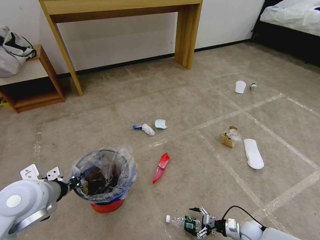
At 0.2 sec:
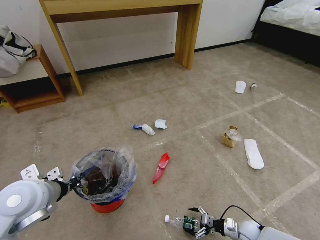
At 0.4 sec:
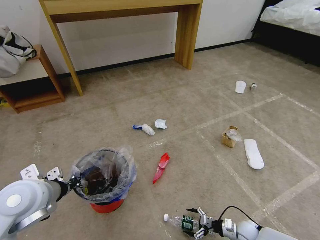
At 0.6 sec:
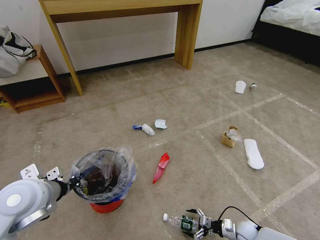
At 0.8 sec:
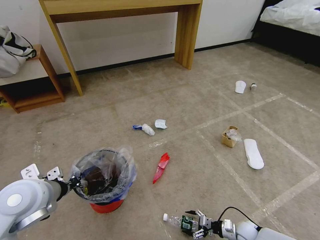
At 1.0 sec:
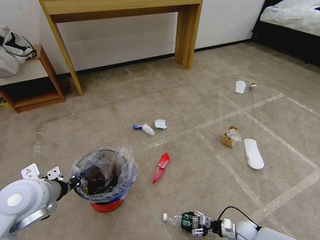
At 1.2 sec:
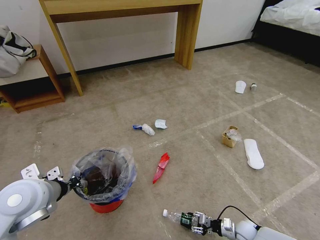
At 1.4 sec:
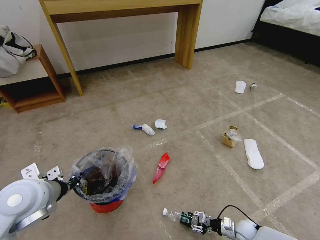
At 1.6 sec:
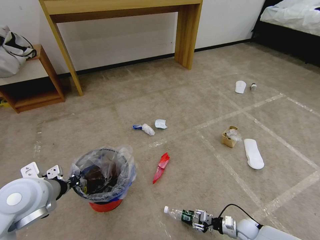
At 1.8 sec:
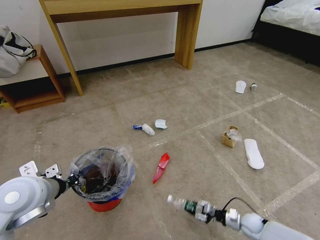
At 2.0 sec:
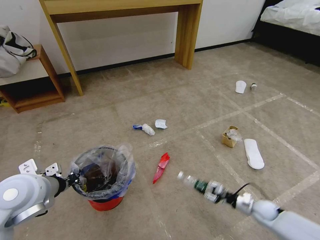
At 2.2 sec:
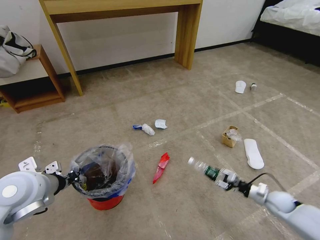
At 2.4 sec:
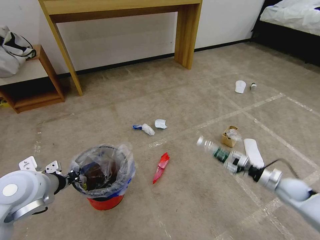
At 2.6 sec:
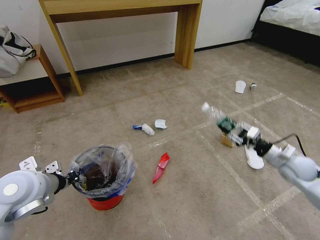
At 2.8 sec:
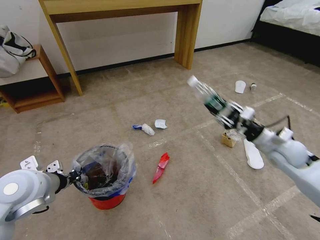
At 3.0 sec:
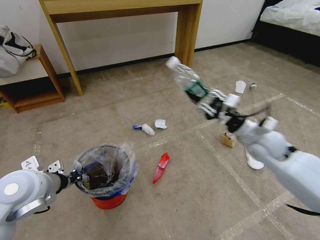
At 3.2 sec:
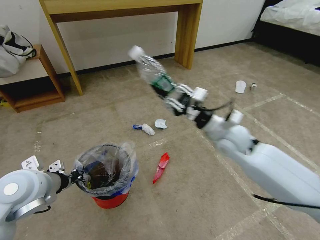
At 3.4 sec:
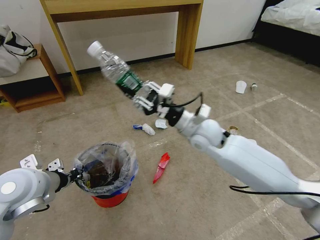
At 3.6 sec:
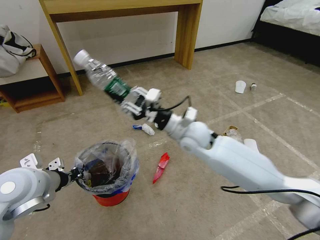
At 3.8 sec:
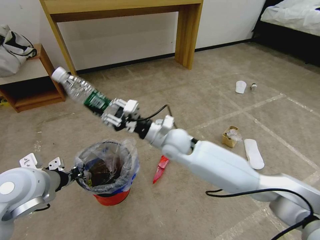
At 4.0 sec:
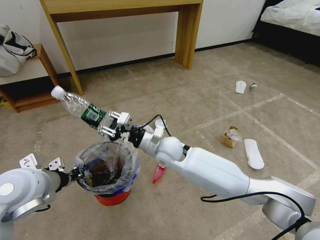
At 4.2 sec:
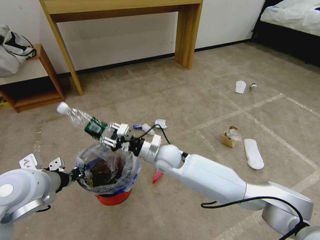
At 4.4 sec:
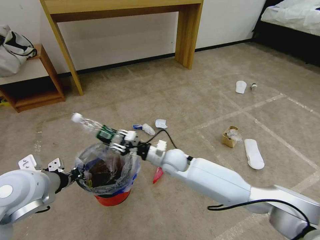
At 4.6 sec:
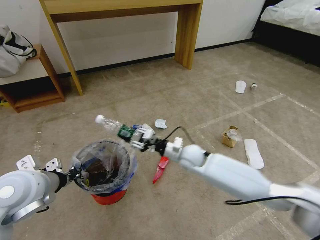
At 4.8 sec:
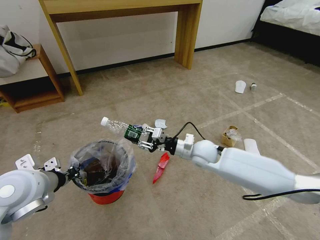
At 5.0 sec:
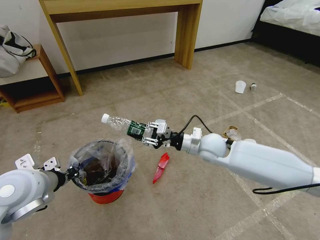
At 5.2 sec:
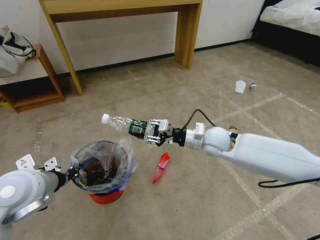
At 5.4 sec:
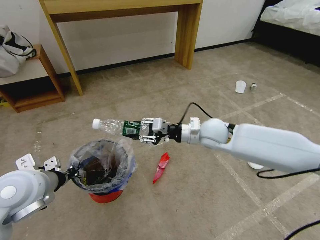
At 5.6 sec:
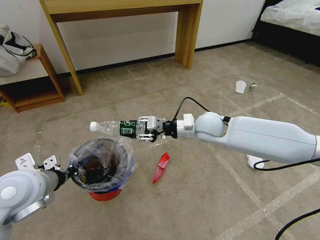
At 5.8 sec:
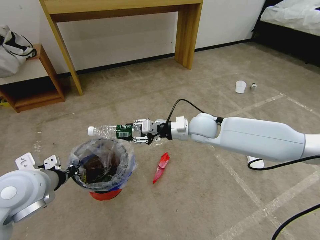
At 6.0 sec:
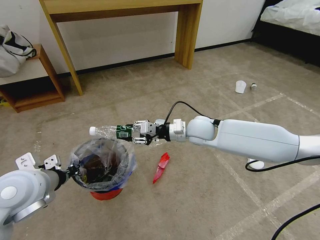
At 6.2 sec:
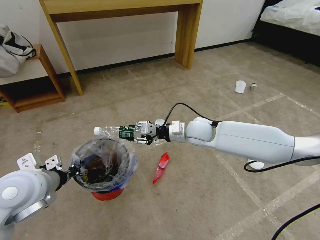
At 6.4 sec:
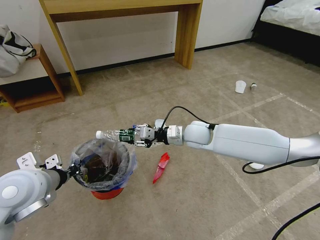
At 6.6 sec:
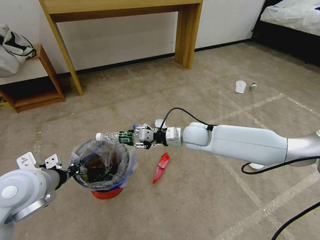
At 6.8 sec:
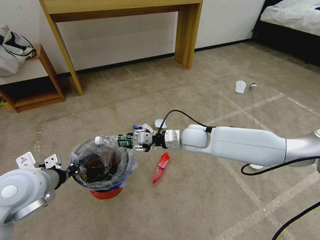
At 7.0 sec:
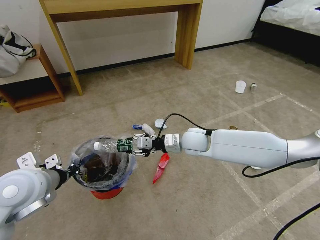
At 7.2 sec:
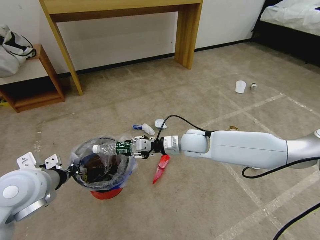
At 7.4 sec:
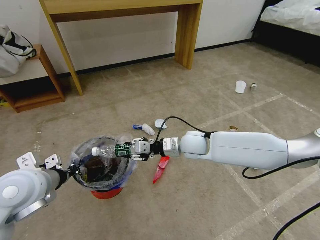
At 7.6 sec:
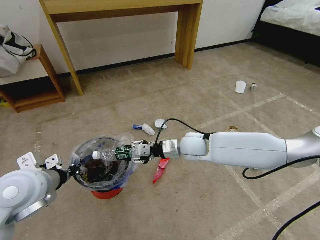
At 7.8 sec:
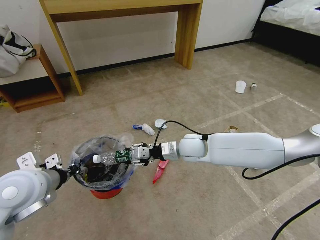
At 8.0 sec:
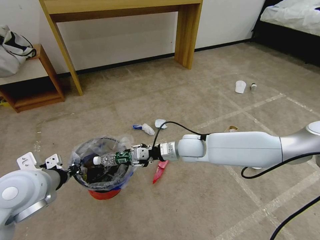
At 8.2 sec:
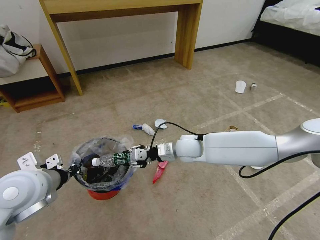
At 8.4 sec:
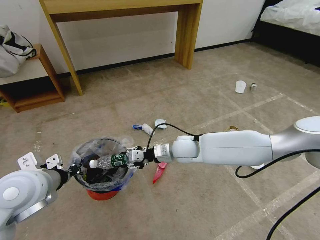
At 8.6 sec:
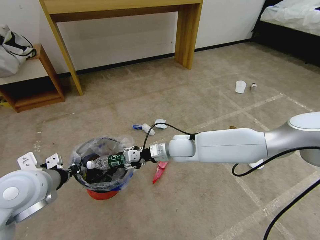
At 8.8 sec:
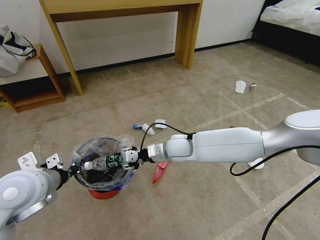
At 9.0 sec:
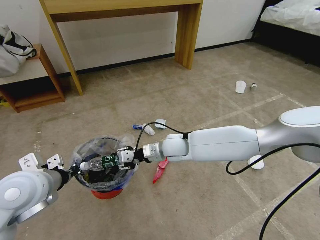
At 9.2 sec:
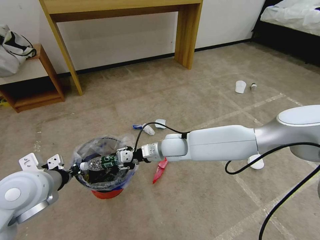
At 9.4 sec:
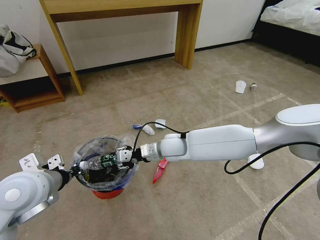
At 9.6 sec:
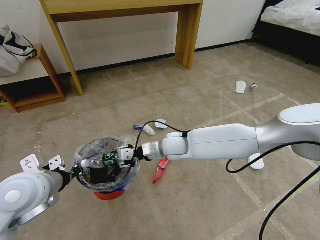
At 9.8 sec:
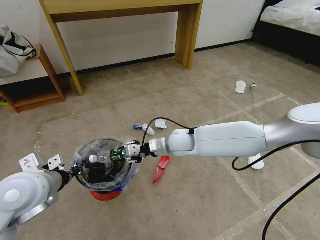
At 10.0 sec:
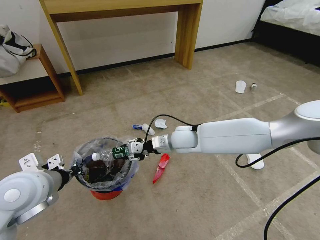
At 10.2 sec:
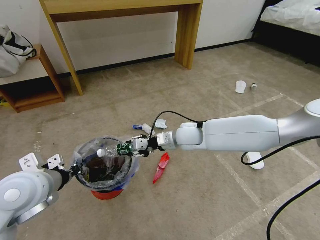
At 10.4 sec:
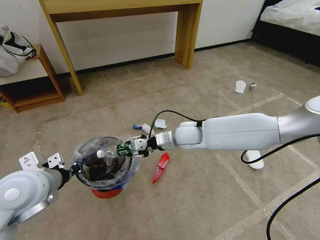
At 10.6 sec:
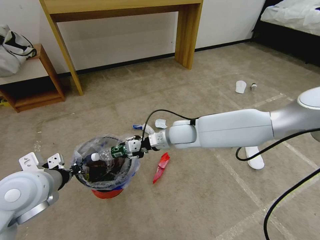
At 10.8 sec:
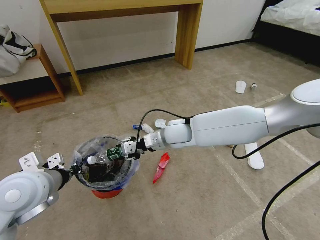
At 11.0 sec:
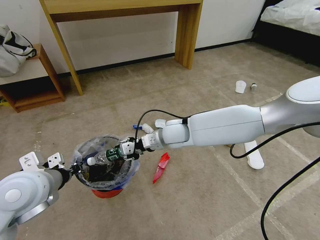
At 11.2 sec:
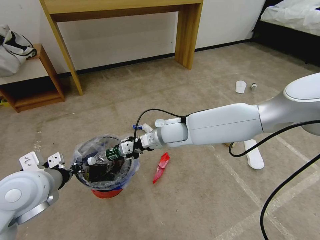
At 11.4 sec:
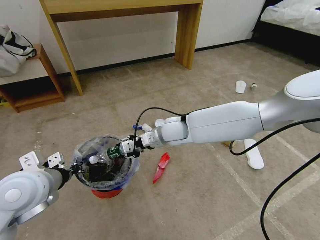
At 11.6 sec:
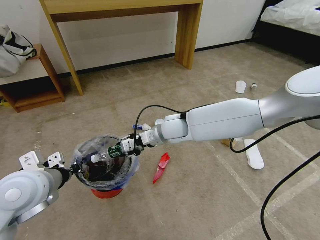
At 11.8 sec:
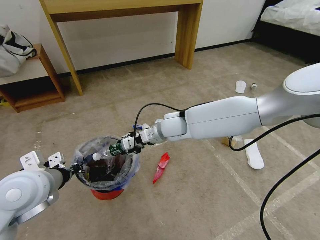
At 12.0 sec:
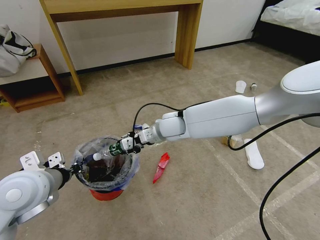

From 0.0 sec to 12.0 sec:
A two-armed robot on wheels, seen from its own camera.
Task of the whole recording: Pick up the trash bin and place the garbage on the floor into it.
From 0.0 sec to 1.6 sec: The right gripper closes its fingers.
From 1.6 sec to 3.0 sec: The right gripper goes roughly 40 cm upward.
From 3.0 sec to 4.4 sec: The right gripper moves to the left and downward, some 30 cm.
From 4.4 sec to 6.0 sec: The right gripper heads upward, to the right and forward, covering about 15 cm.
From 6.0 sec to 7.6 sec: The right gripper ends up some 5 cm from where it was.
From 7.6 sec to 9.0 sec: The right gripper is displaced to the left by approximately 5 cm.
From 9.0 sec to 10.4 sec: The right gripper moves roughly 5 cm.
From 10.4 sec to 12.0 sec: The right gripper moves to the left, about 5 cm.

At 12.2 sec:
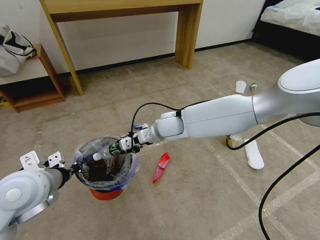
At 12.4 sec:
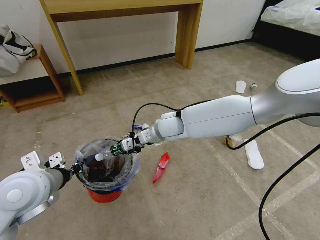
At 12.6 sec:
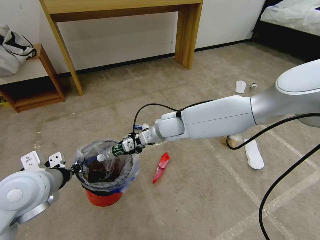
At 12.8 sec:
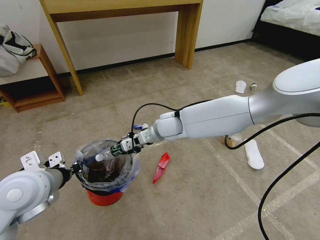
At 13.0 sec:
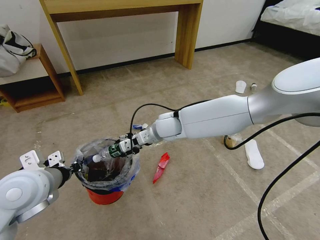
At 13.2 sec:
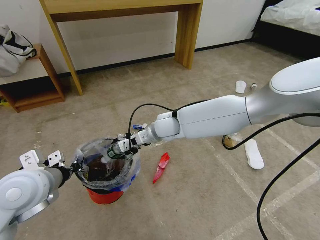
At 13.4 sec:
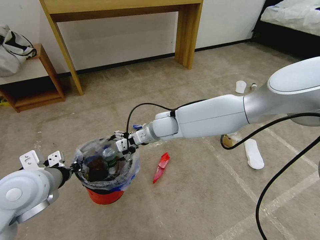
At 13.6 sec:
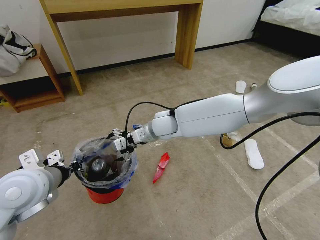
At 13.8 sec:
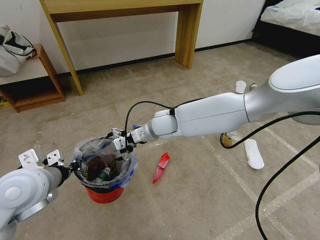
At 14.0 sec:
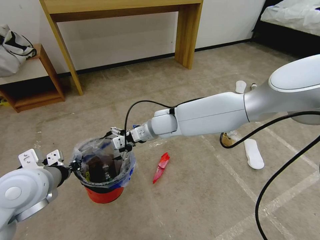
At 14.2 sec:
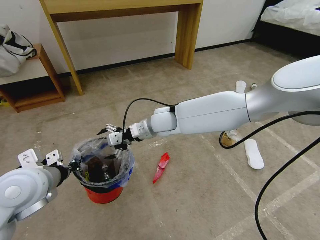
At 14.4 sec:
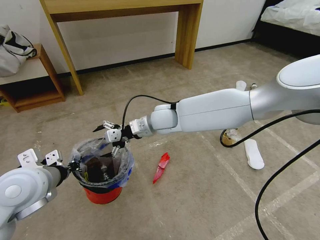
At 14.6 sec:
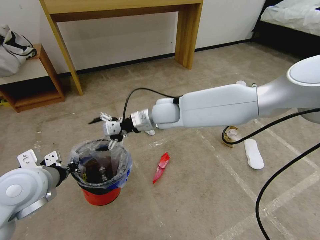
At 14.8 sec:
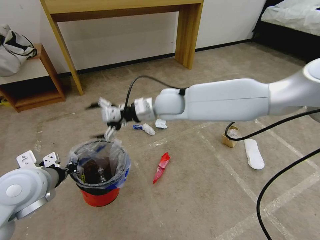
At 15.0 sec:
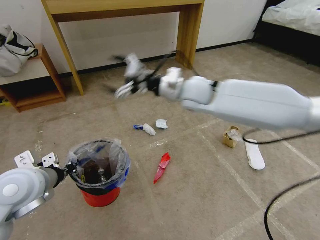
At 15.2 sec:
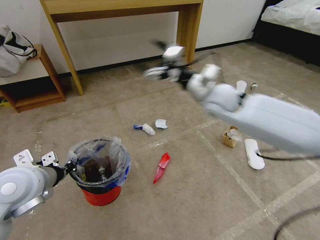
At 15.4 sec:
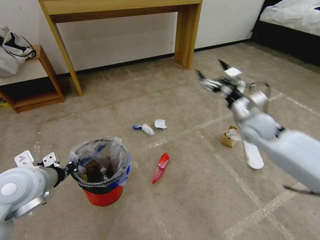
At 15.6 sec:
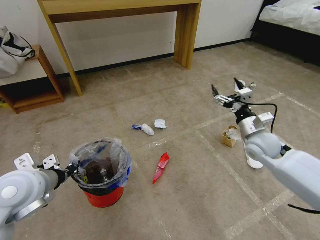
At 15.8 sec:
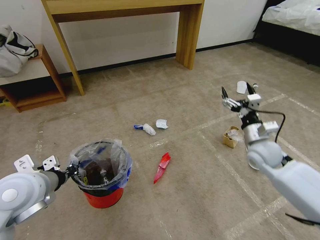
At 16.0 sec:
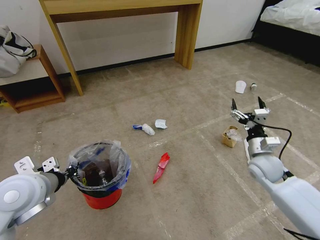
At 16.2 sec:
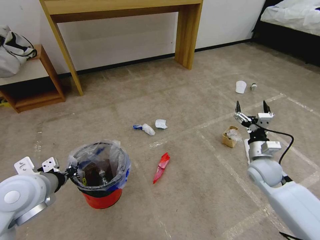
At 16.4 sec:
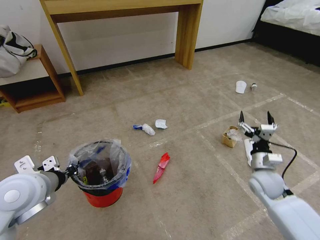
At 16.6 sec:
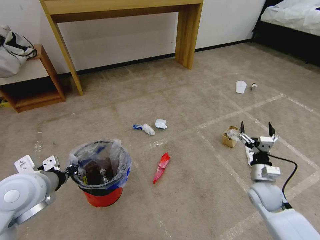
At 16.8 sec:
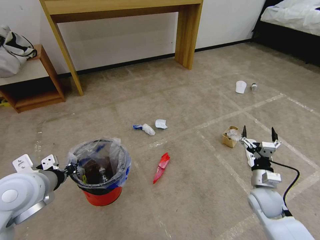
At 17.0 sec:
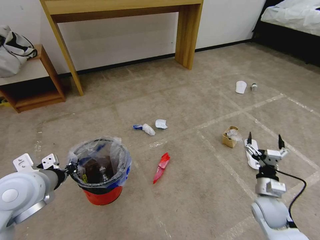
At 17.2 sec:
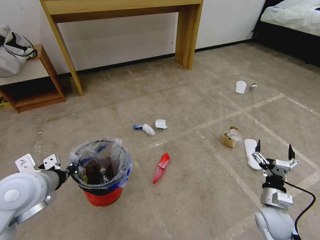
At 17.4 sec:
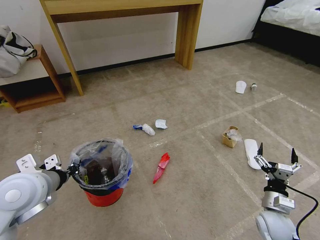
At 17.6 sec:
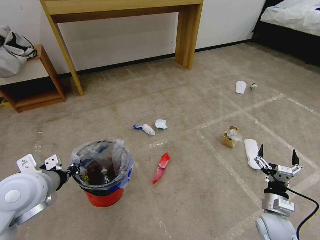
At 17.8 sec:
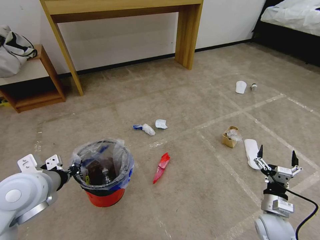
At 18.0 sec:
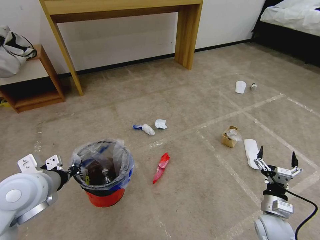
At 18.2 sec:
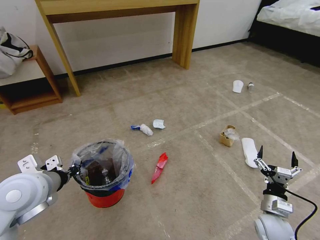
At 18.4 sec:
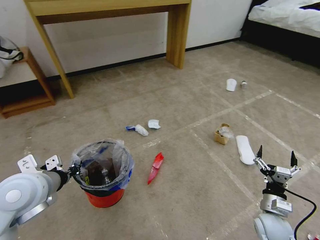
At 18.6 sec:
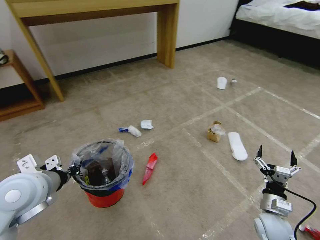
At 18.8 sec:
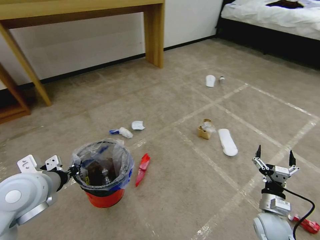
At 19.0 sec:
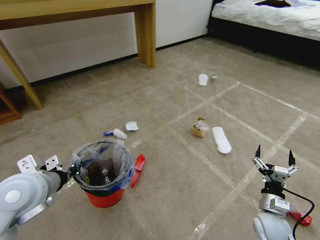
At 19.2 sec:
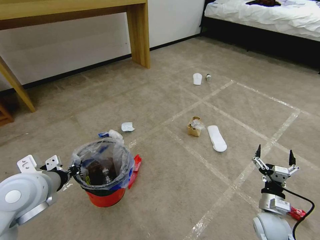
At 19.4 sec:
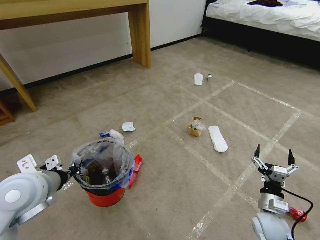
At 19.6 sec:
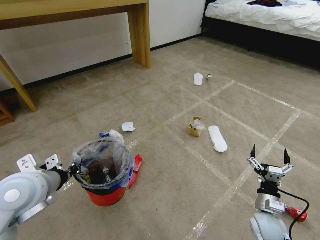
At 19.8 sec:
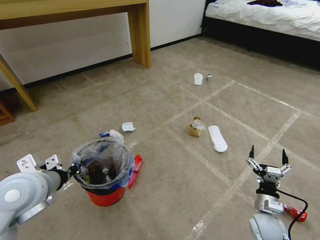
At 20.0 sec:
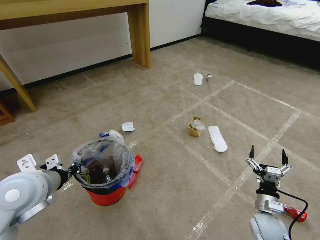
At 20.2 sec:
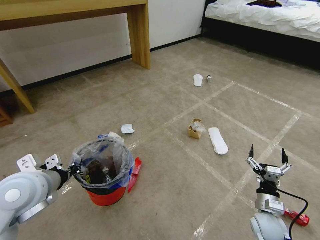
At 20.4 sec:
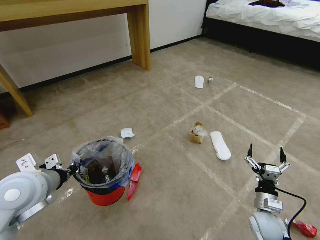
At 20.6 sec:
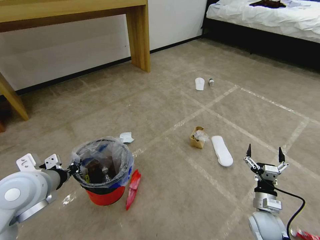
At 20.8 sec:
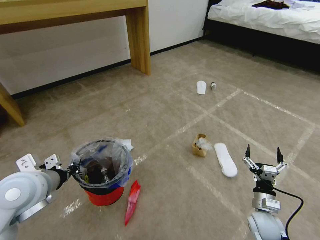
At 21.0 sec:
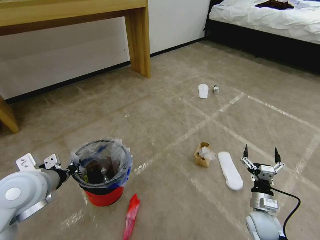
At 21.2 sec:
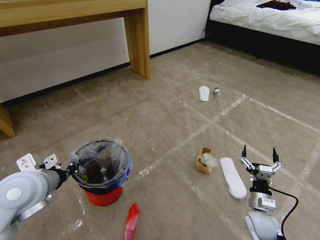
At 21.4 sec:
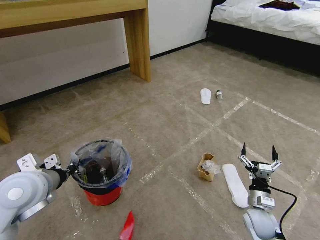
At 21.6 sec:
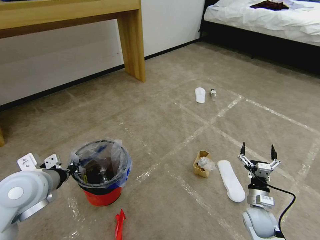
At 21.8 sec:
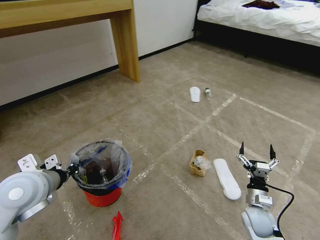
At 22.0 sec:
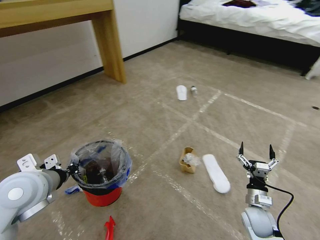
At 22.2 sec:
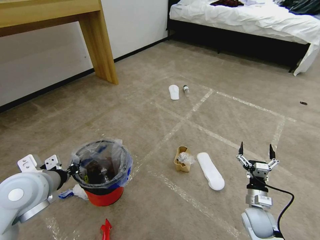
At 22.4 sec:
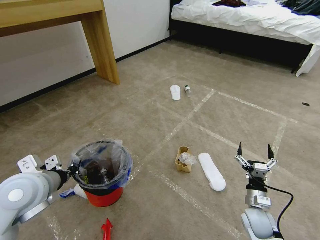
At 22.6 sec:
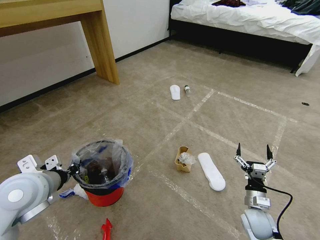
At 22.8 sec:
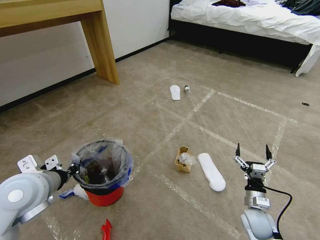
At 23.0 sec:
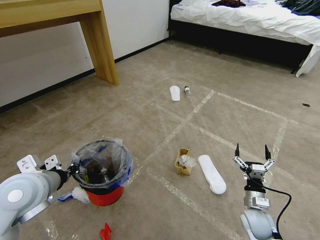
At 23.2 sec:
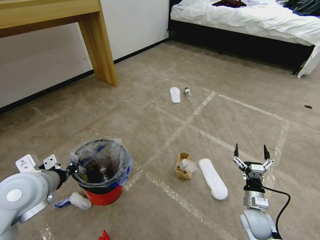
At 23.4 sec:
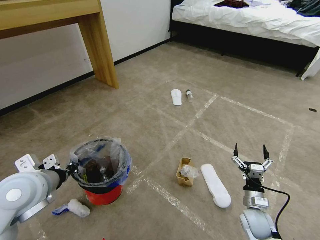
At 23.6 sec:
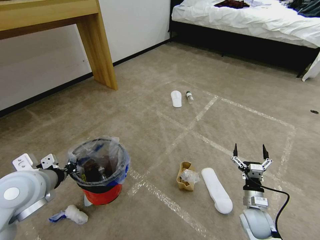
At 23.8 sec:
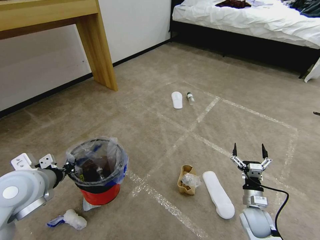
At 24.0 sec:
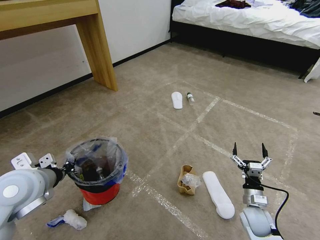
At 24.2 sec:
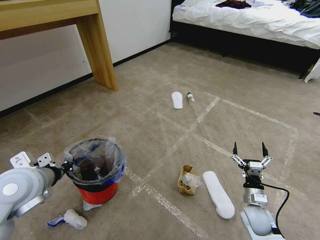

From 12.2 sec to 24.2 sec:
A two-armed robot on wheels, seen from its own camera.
Task of the whole recording: Pick up the trash bin and place the garbage on the floor into it.
From 12.2 sec to 13.8 sec: The right gripper opens its fingers.
From 13.8 sec to 15.2 sec: The right gripper is displaced to the right and upward by approximately 20 cm.
From 15.2 sec to 16.6 sec: The right gripper travels downward, to the right and backward by roughly 40 cm.
From 16.6 sec to 18.2 sec: The right gripper is displaced backward by some 10 cm.
